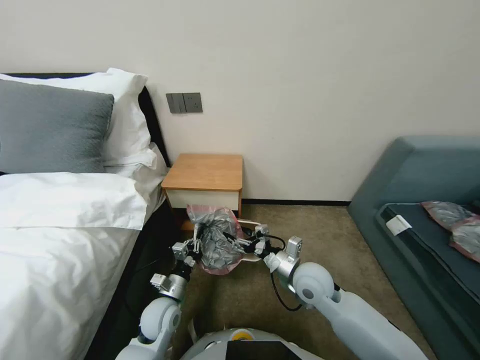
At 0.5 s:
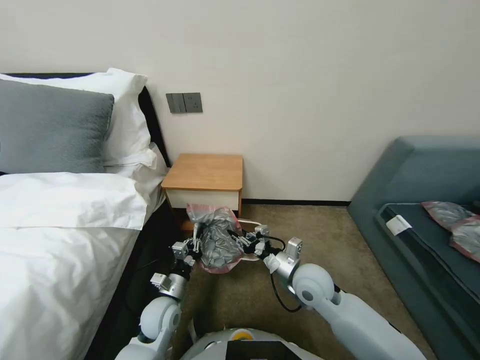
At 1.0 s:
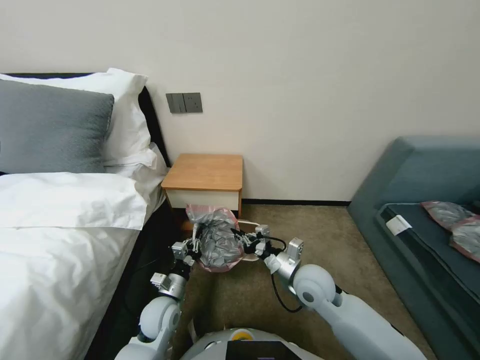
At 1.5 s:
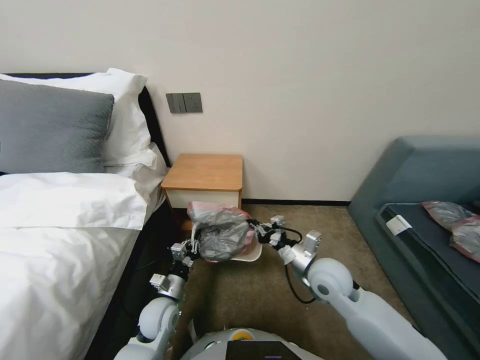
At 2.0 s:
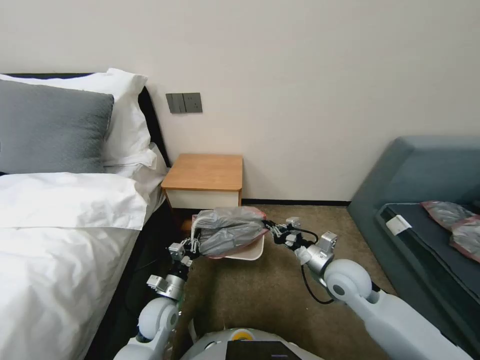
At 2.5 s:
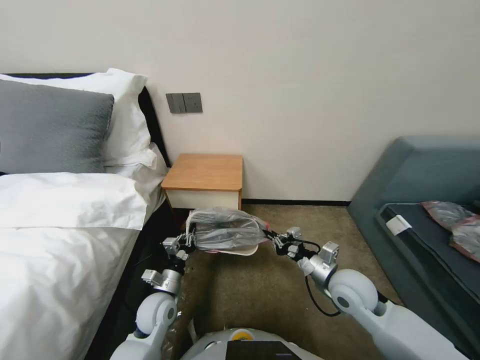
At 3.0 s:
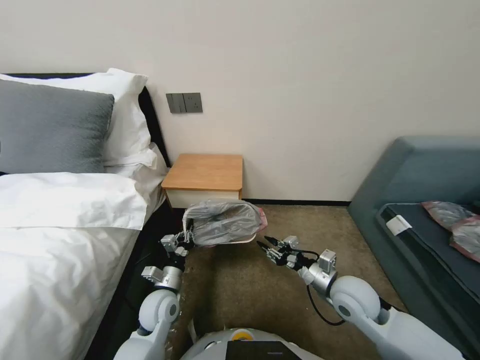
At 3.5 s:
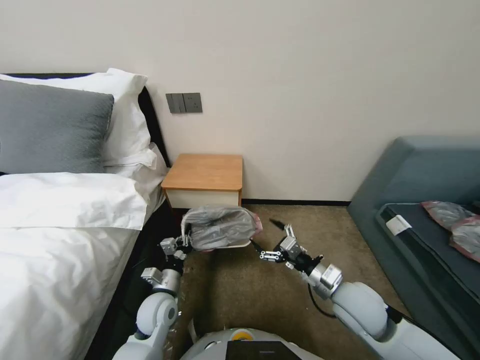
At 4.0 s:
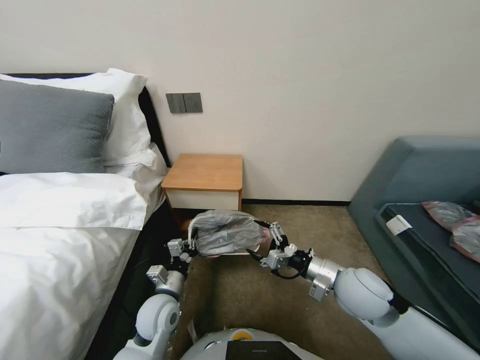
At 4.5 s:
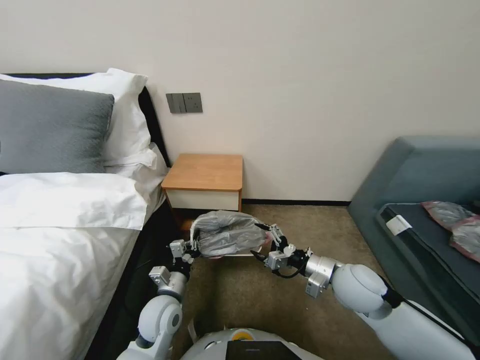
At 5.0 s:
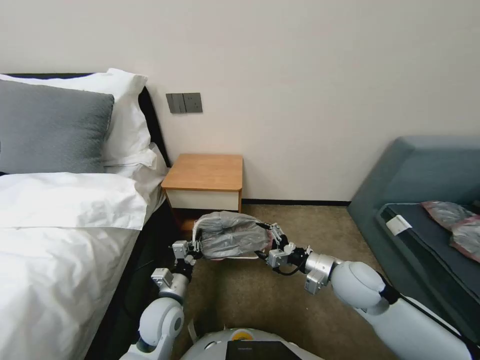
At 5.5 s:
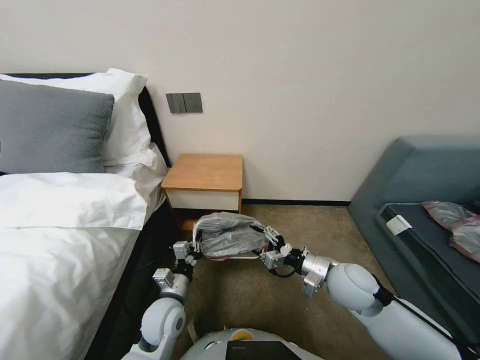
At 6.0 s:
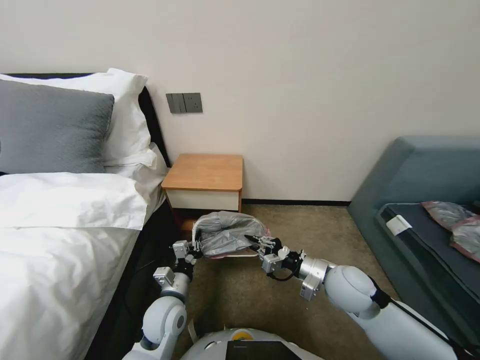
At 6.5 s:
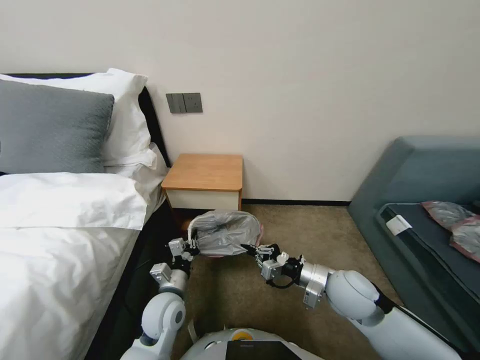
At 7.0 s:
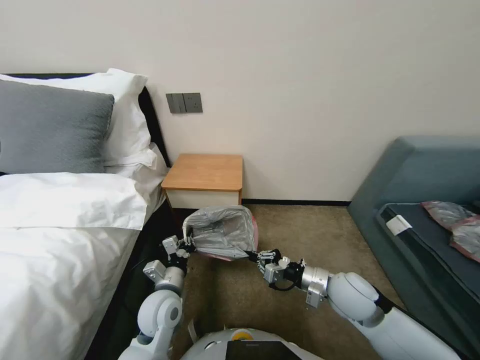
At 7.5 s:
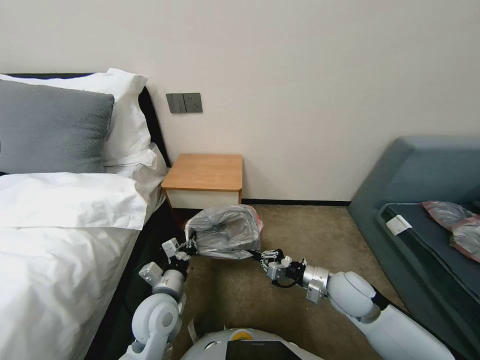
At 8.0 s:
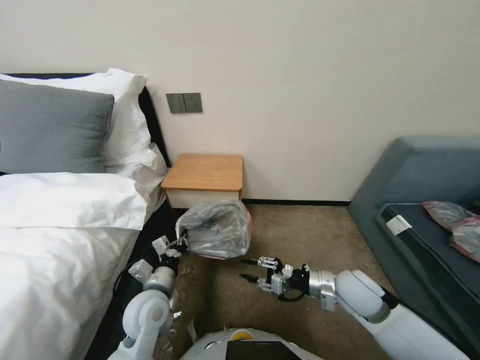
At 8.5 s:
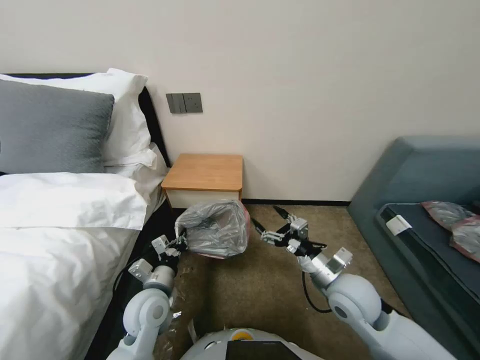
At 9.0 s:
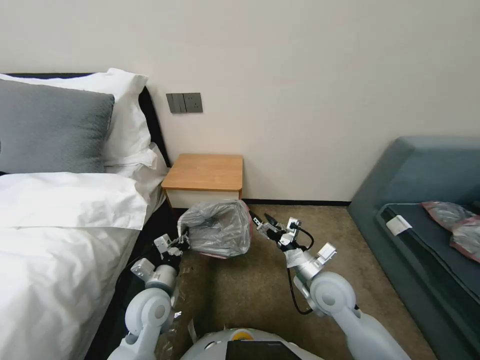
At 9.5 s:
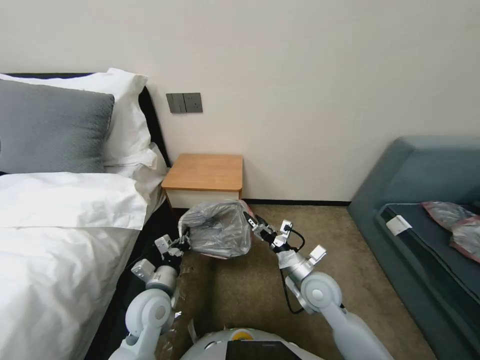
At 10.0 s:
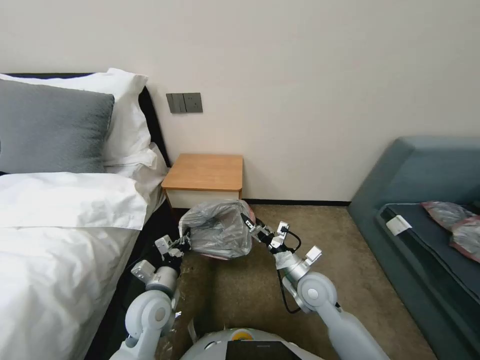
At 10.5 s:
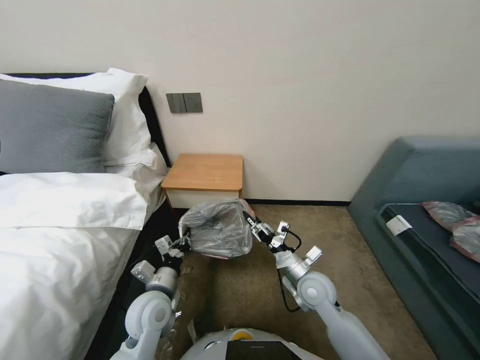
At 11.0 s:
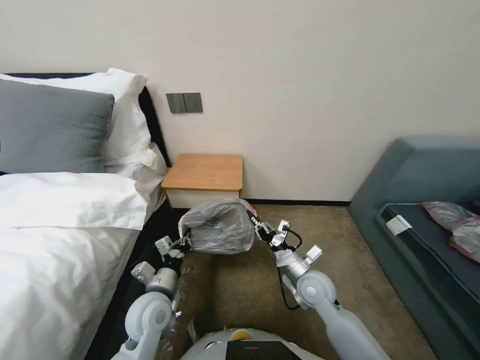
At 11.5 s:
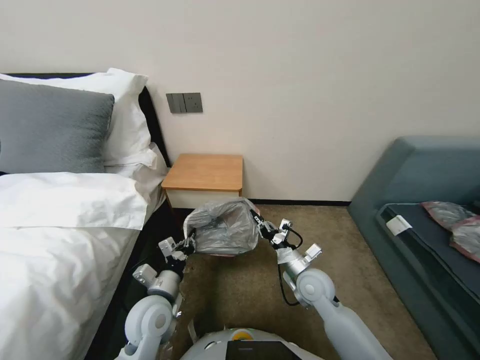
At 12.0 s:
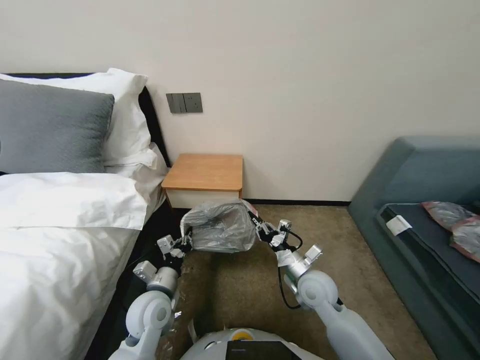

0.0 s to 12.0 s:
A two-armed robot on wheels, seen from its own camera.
Task of the whole recording: Pick up the garbage bag from the table and place it over the trash can.
0.0 to 2.0 s: The right gripper moves to the right, roughly 5 cm, and closes up.
2.0 to 4.0 s: The right gripper opens. Meanwhile the left gripper goes approximately 5 cm upward.
4.0 to 6.0 s: The right gripper closes.
8.0 to 10.0 s: The right gripper moves to the left, approximately 5 cm, and opens up.
10.0 to 12.0 s: The right gripper closes its fingers.

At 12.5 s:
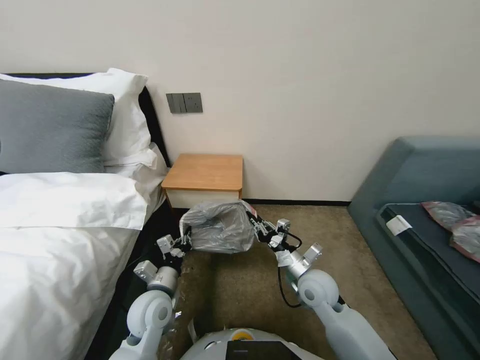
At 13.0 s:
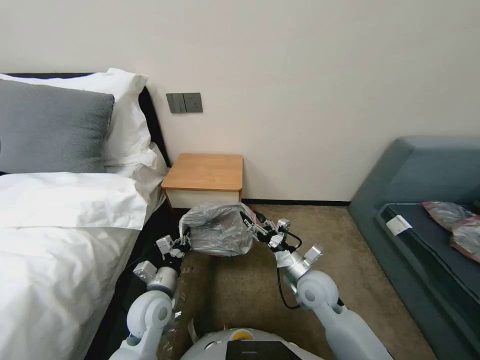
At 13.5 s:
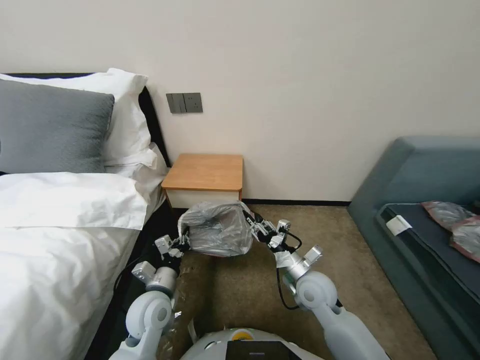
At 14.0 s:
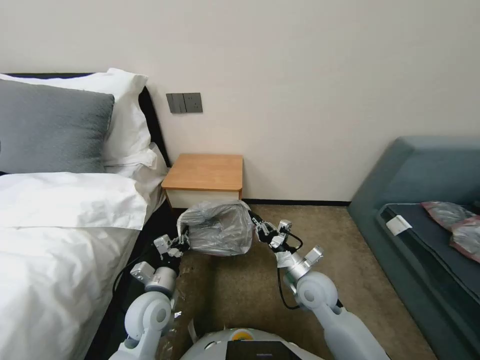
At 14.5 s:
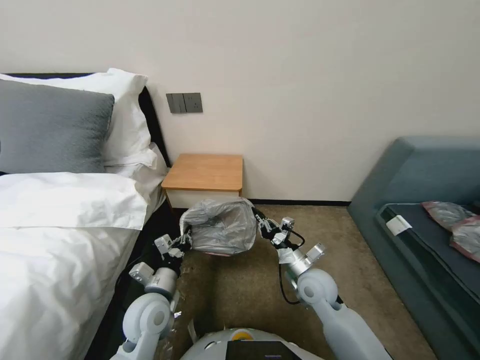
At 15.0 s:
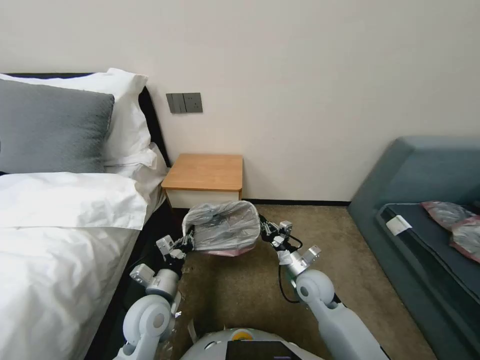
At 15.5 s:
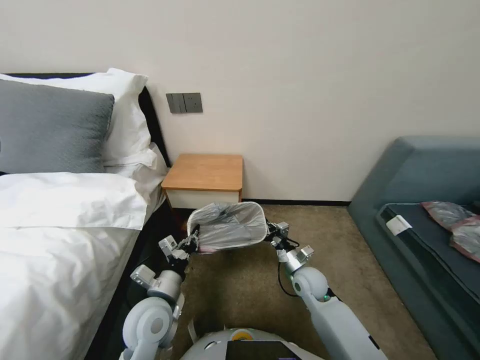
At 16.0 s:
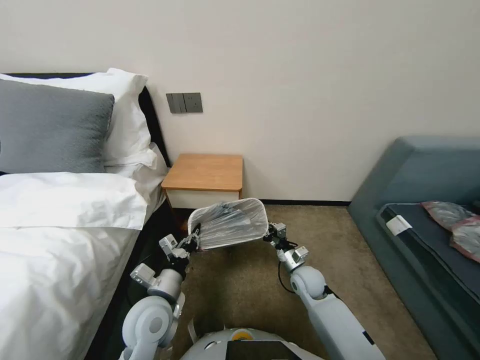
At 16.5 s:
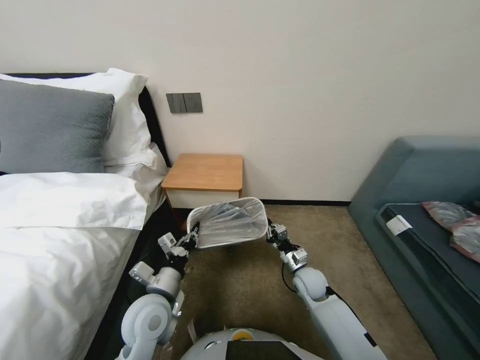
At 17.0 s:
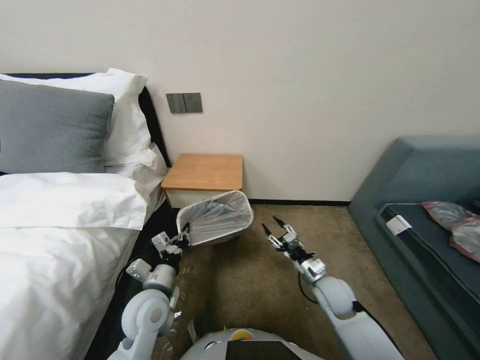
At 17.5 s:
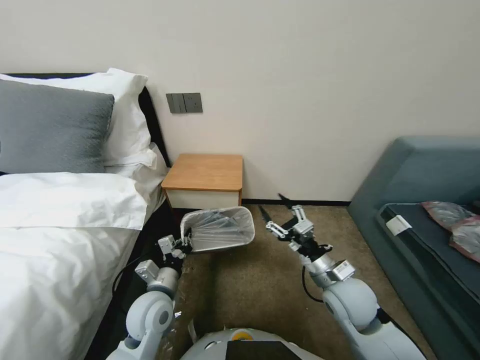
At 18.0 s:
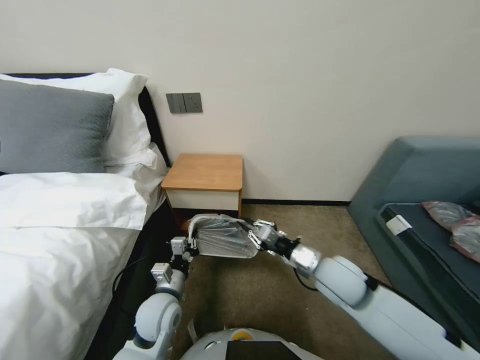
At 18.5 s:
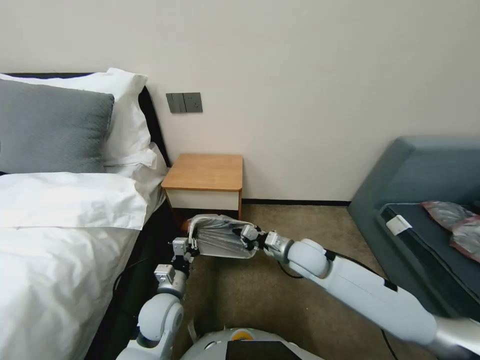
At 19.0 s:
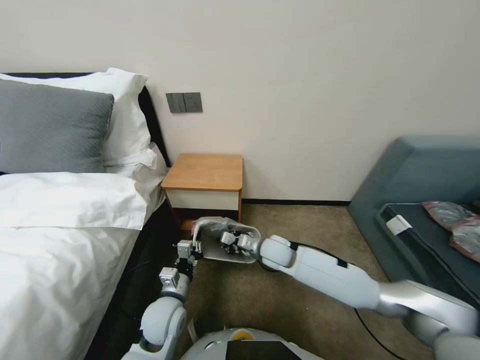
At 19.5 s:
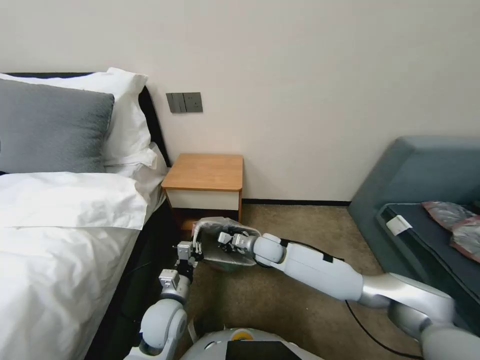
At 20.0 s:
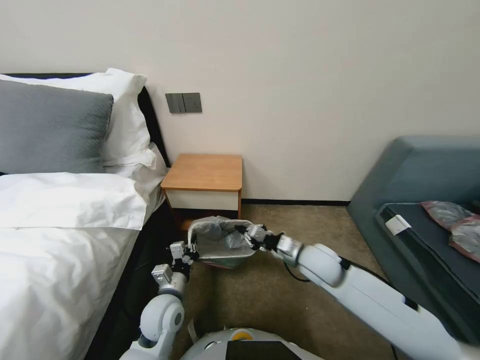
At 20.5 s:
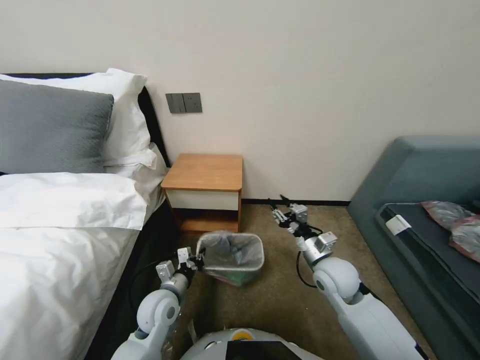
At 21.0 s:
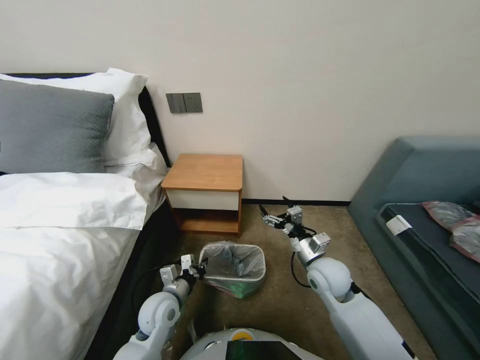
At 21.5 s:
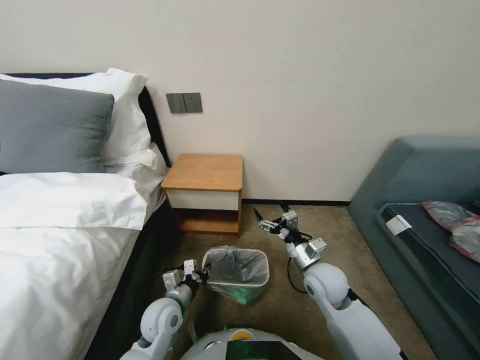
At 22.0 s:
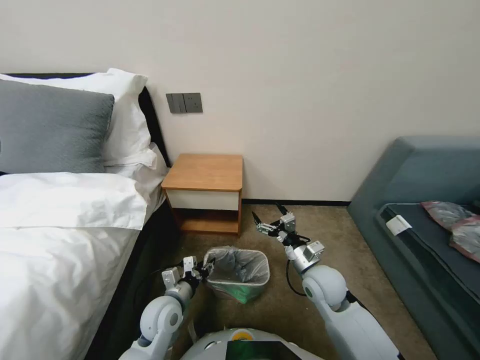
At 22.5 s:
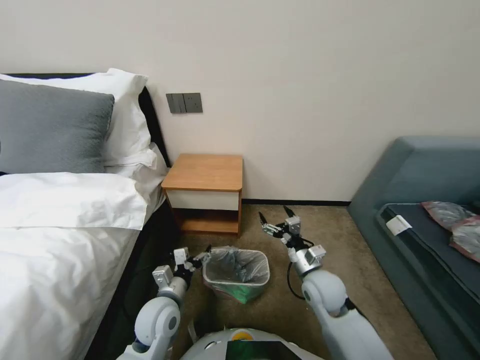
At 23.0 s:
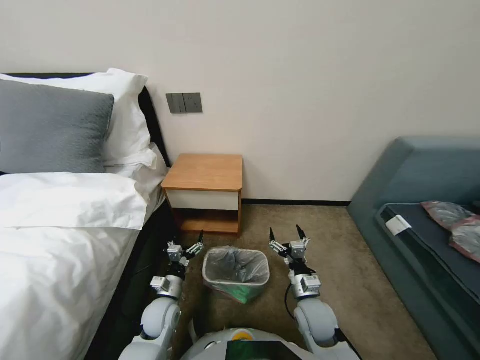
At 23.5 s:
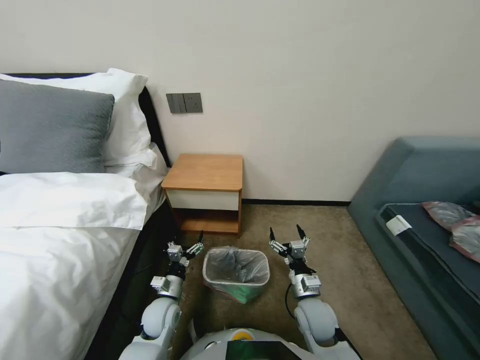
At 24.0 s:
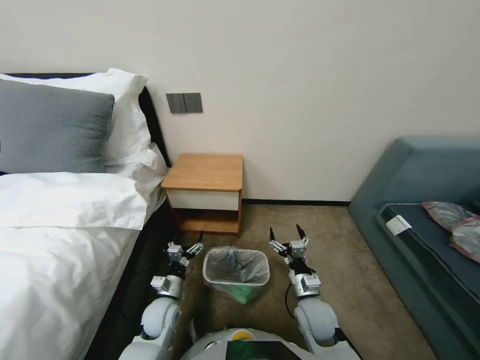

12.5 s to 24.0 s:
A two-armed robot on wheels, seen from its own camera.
Task of the whole recording: Pick up the garbage bag from the table and place it over the trash can.
12.5 to 14.5 s: The right gripper opens, then closes again.
14.5 to 16.5 s: The right gripper heads downward, covering about 10 cm.
16.5 to 18.5 s: The right gripper is displaced upward by approximately 15 cm, and opens and closes again; the left gripper shifts approximately 5 cm downward.
18.5 to 20.0 s: The right gripper moves some 10 cm to the left and comes back.
20.0 to 22.0 s: The right gripper shifts some 5 cm backward, and opens its fingers.
22.0 to 24.0 s: The left gripper heads downward, covering some 5 cm, and opens up. The right gripper goes roughly 10 cm downward and backward.

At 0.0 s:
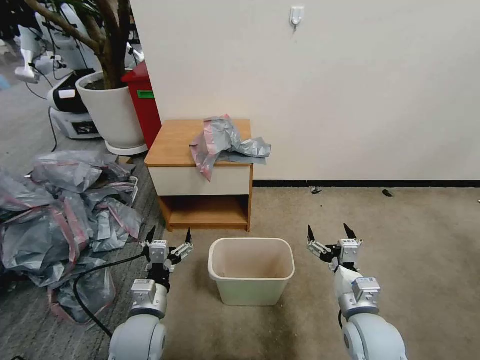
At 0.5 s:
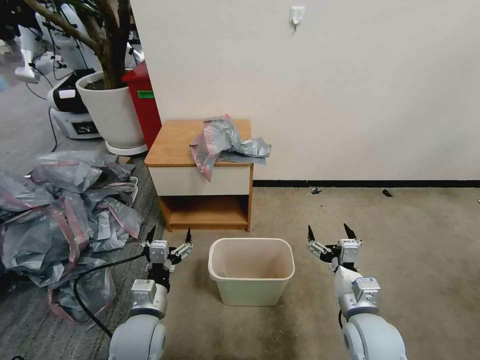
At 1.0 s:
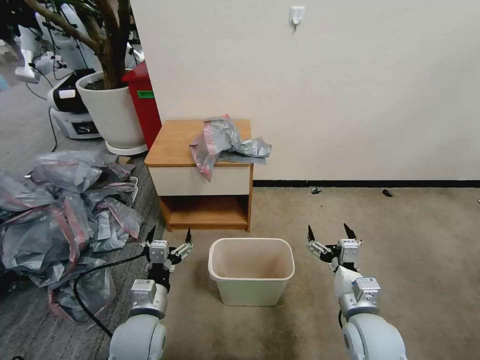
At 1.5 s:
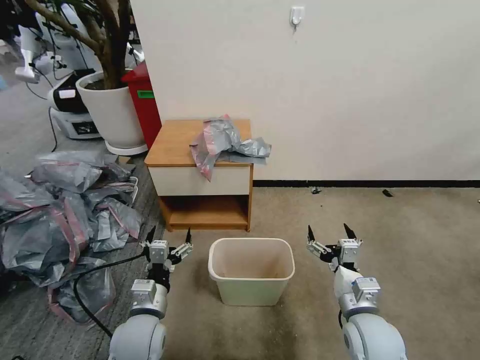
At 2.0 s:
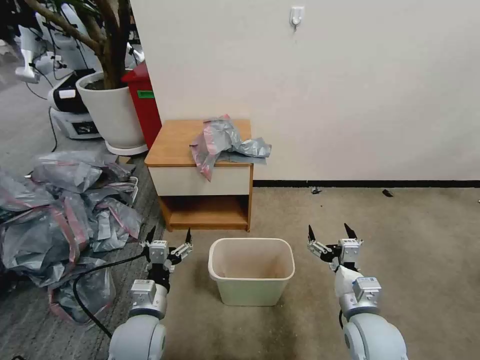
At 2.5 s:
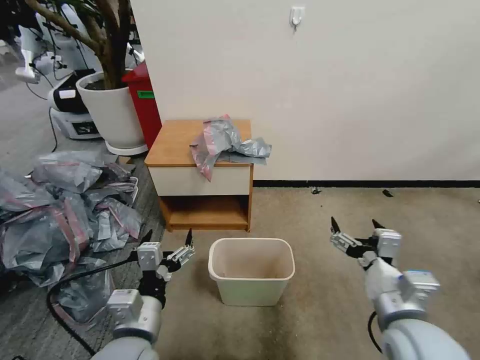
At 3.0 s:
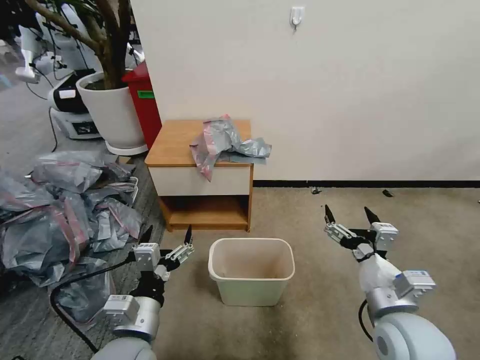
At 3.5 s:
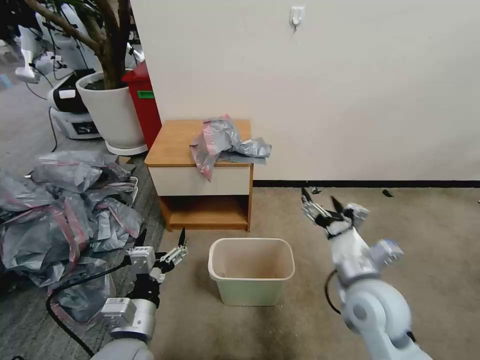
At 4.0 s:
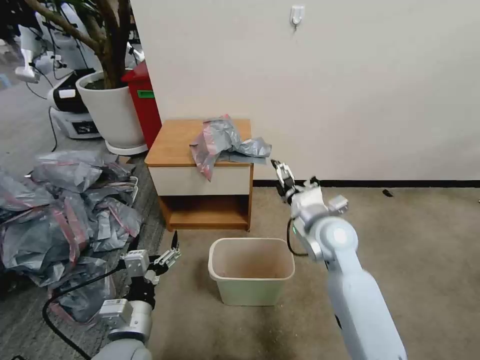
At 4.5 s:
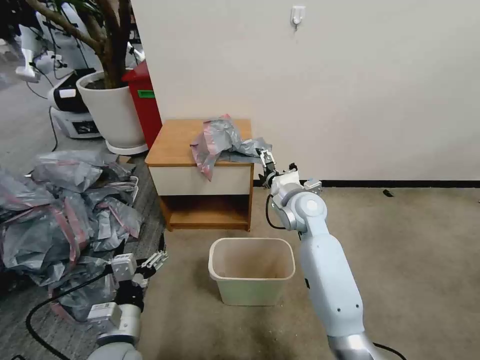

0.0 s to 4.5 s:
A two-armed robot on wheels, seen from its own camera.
Task of the whole recording: Pick up the garbage bag from the table and place it over the trash can.
2.0 to 4.5 s: The left gripper travels backward by some 5 cm; the right gripper is displaced forward, upward and to the left by roughly 30 cm.
